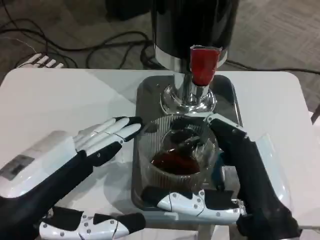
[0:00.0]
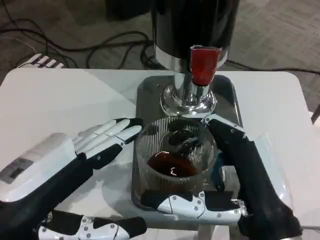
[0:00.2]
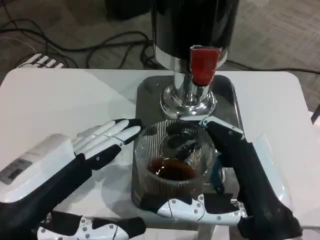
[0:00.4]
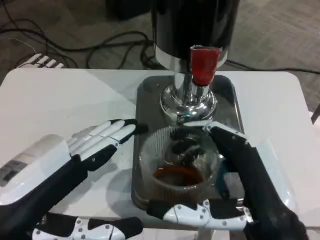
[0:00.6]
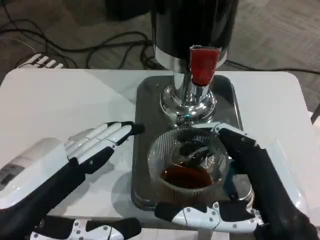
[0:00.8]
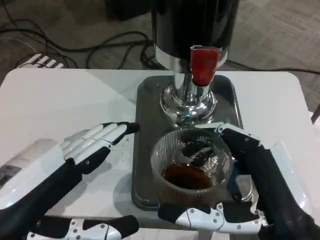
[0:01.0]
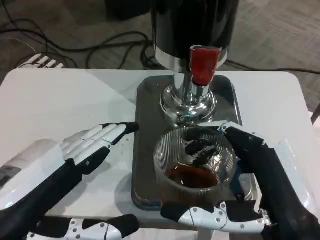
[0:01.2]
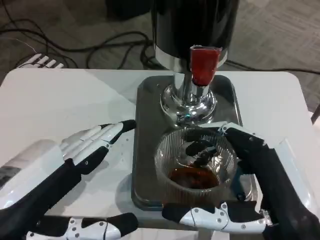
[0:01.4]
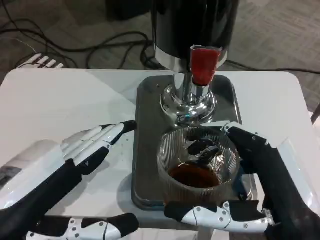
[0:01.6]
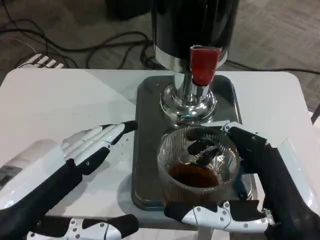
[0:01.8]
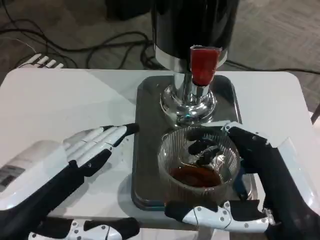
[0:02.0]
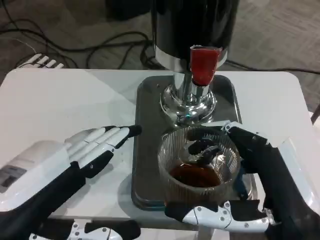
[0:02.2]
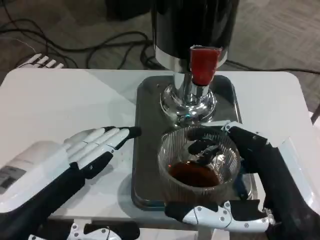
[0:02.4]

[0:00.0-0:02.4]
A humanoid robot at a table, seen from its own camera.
Task of the whole recording: Grasp the cup under the faucet to collect the drink, then remove the cup.
0:01.2 to 0:02.4: Neither hand changes place.

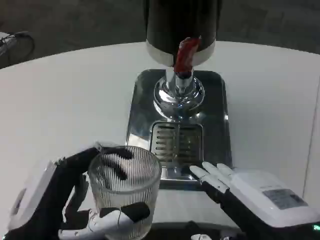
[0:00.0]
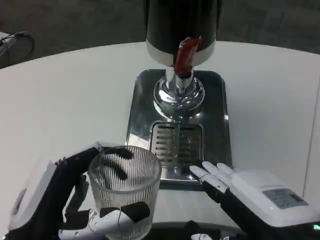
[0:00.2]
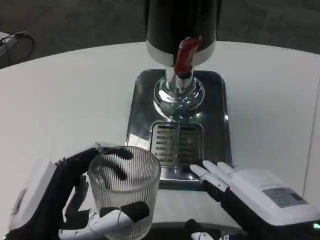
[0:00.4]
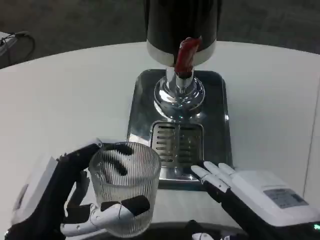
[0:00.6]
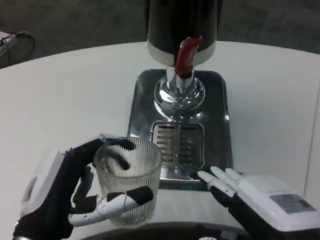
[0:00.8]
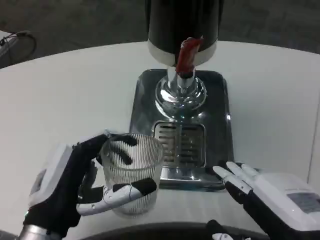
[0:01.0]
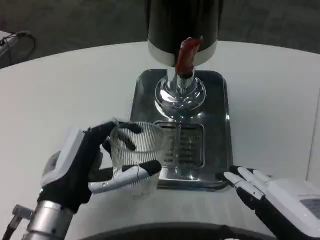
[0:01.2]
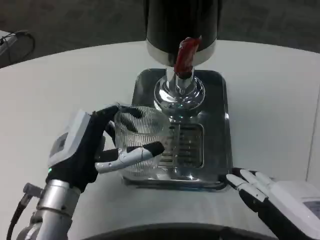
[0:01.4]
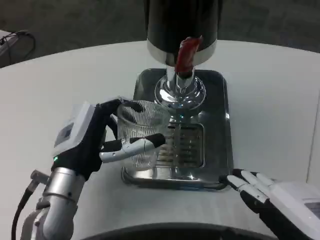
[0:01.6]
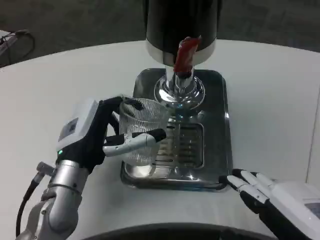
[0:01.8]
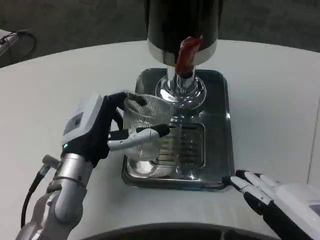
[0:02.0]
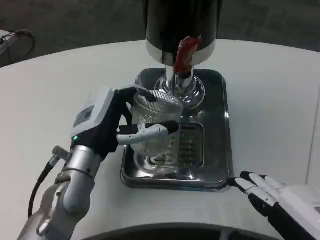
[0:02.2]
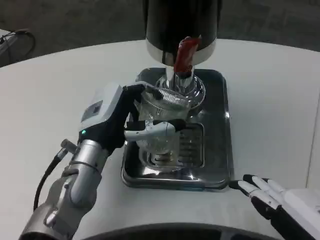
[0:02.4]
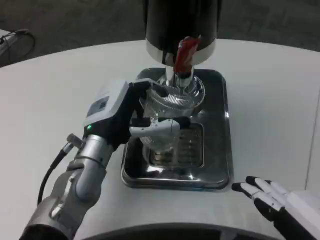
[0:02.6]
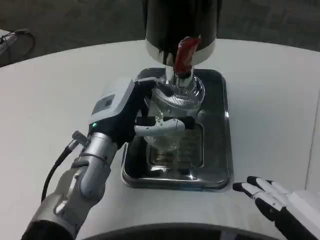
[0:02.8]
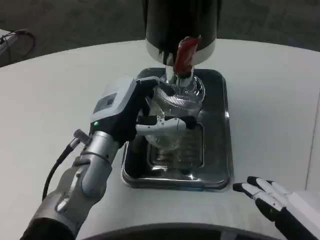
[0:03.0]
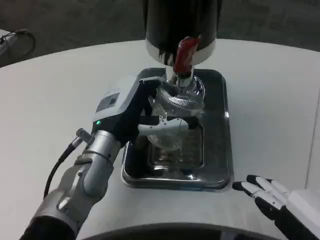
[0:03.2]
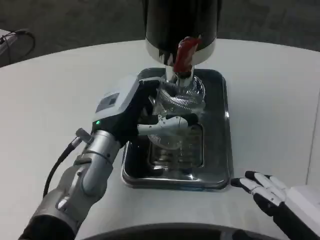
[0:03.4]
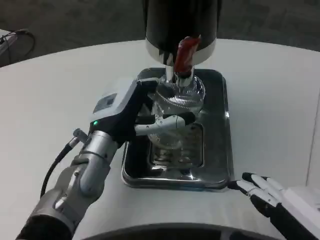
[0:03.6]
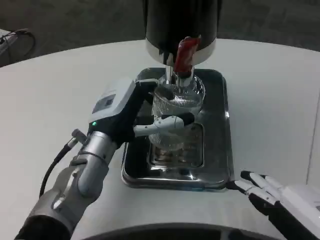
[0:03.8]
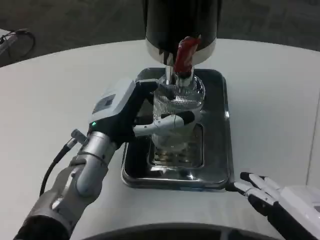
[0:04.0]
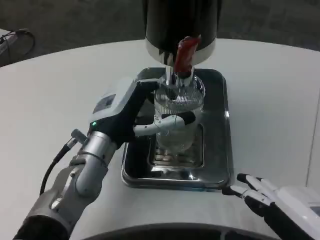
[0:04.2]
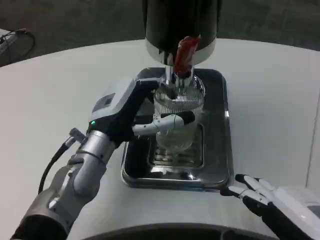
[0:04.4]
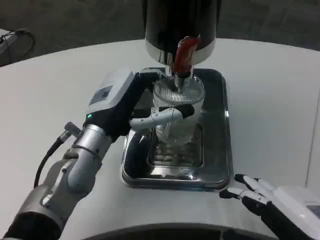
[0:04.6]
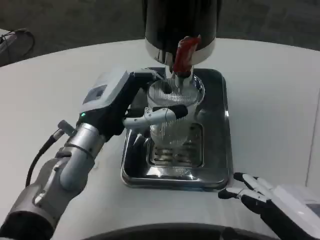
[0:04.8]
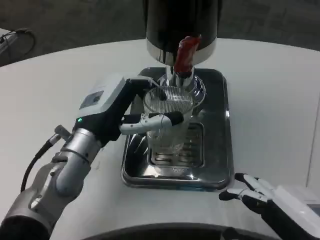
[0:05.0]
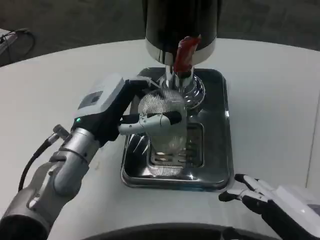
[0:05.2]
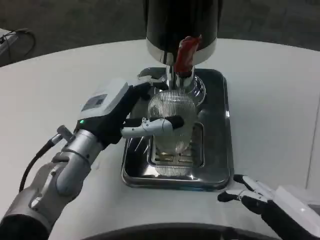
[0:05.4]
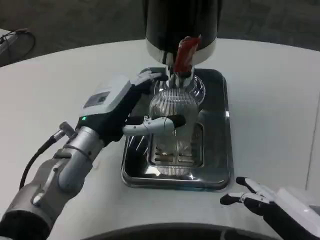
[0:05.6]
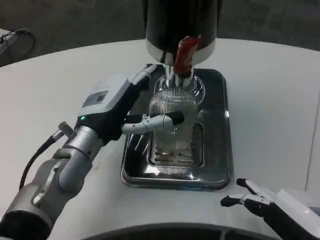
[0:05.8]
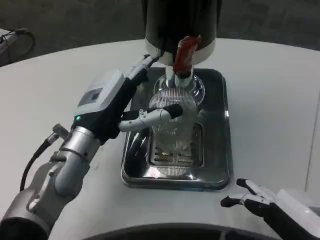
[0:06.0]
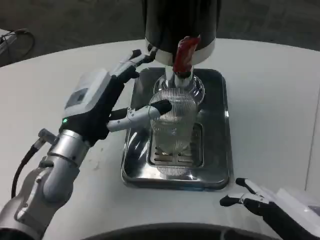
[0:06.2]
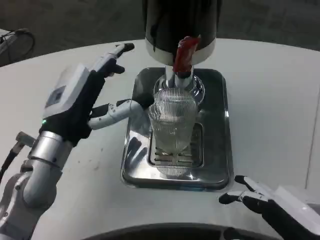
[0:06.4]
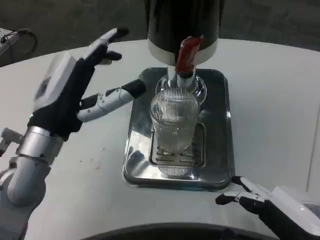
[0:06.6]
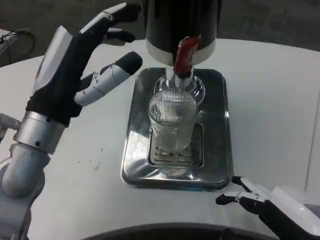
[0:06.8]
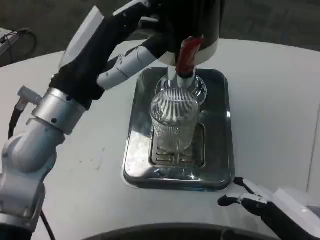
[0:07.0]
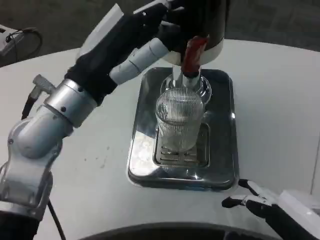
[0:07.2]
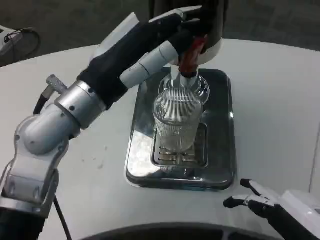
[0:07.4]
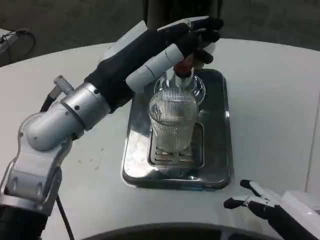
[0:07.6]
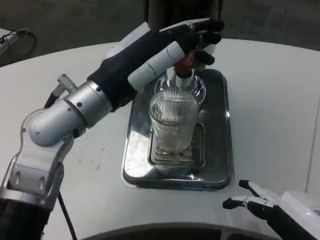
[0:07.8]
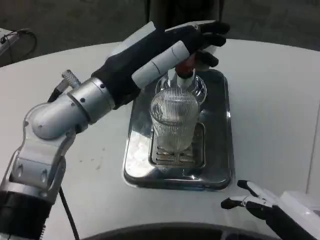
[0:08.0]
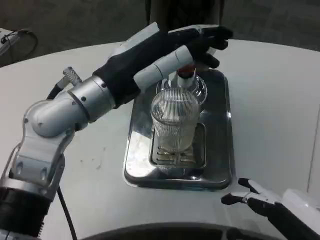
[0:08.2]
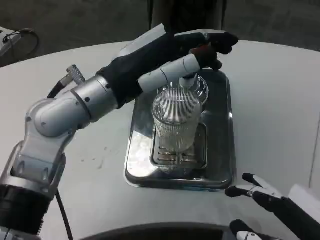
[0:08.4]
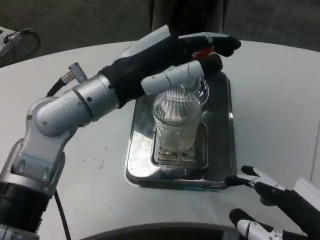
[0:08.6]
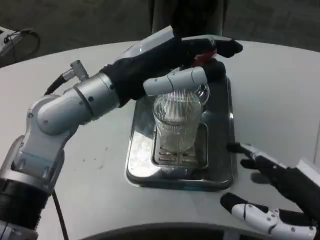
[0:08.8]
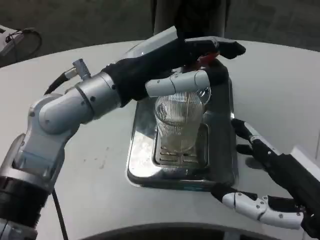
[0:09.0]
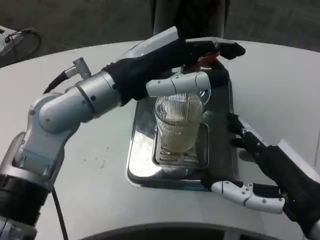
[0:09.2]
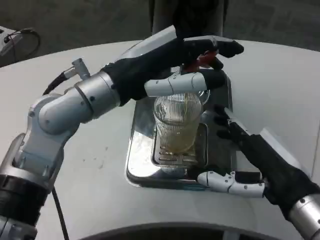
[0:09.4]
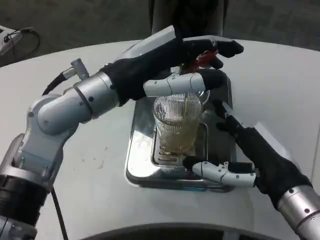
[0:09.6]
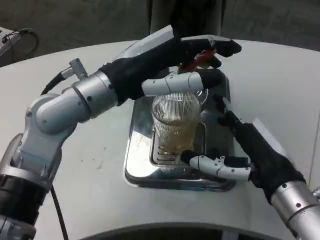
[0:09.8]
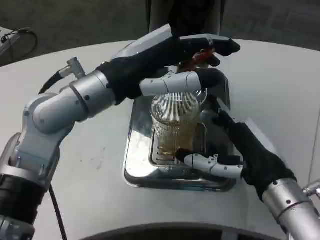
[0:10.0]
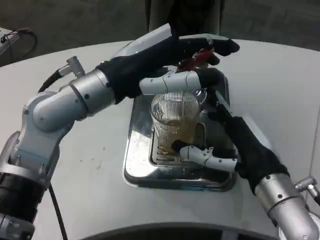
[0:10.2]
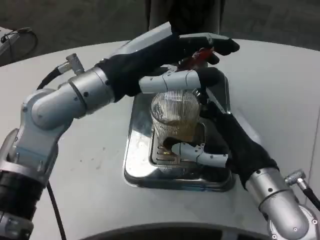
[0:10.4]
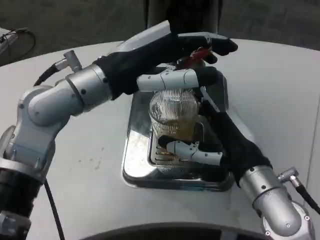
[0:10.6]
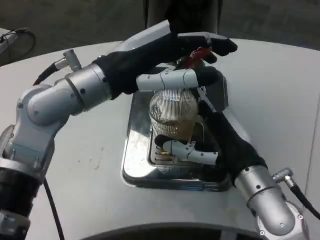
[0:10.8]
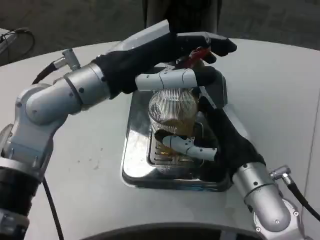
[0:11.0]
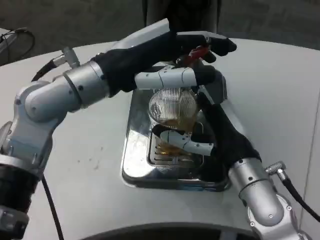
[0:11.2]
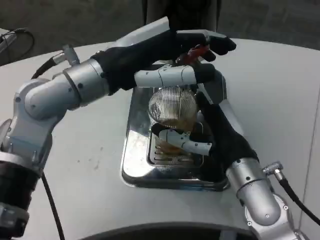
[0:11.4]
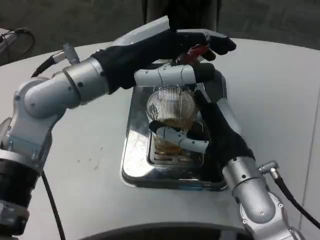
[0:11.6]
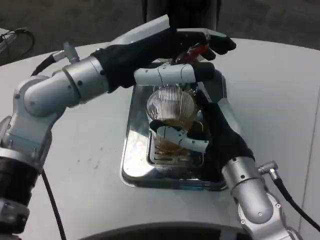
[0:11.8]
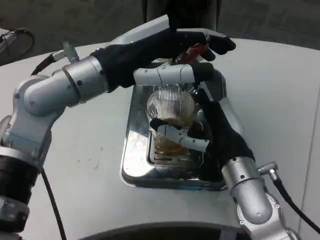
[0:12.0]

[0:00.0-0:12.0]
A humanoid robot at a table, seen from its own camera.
Task of the whole recording: Grasp the cup under the faucet to collect the drink, then remove the cup.
0:00.0 to 0:01.6: The left hand heads forward, covering approximately 15 cm.
0:01.6 to 0:03.0: The left hand moves forward, about 5 cm.
0:03.0 to 0:06.0: The hands make only small movements.
0:06.0 to 0:07.6: The left hand goes roughly 10 cm upward.
0:09.0 to 0:10.4: The right hand travels forward and to the left by roughly 10 cm.

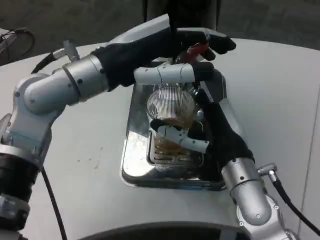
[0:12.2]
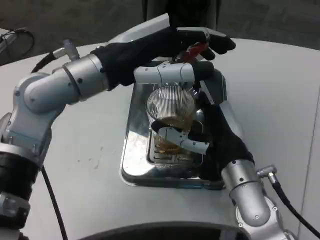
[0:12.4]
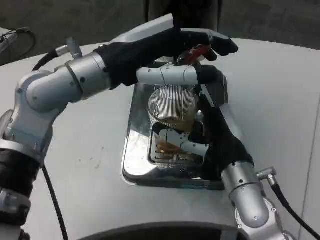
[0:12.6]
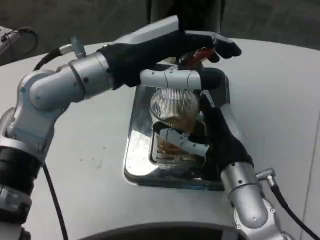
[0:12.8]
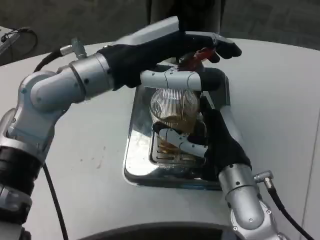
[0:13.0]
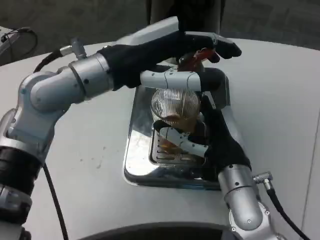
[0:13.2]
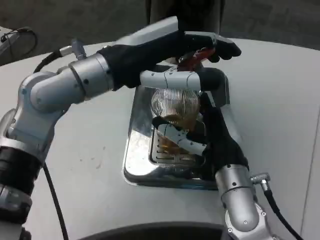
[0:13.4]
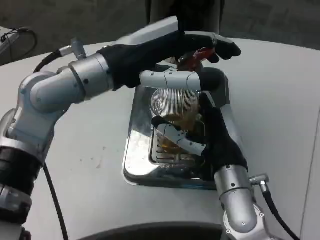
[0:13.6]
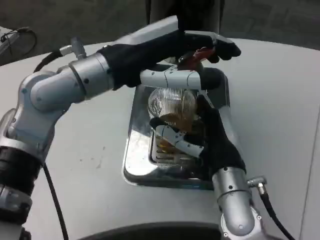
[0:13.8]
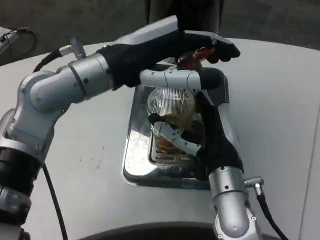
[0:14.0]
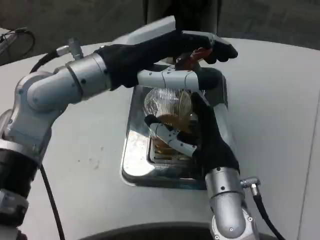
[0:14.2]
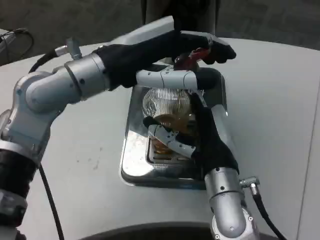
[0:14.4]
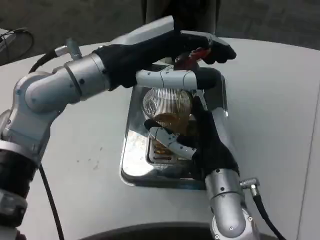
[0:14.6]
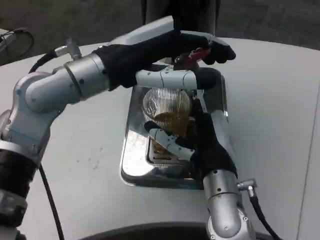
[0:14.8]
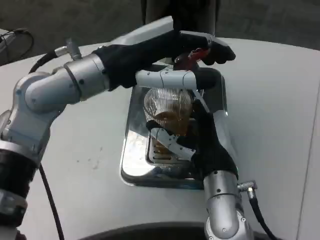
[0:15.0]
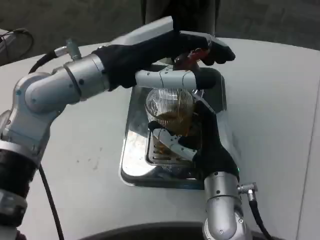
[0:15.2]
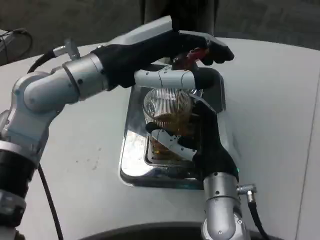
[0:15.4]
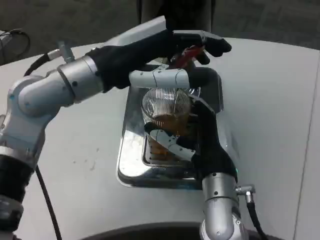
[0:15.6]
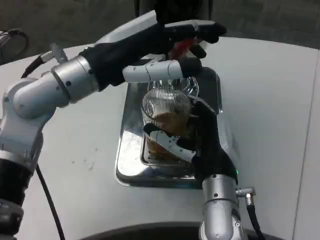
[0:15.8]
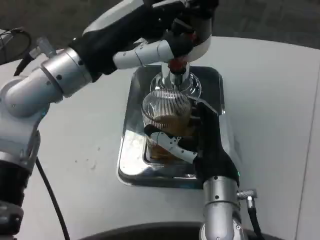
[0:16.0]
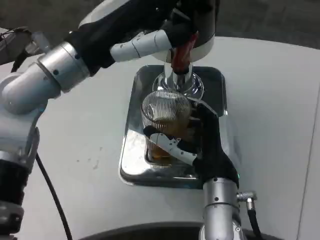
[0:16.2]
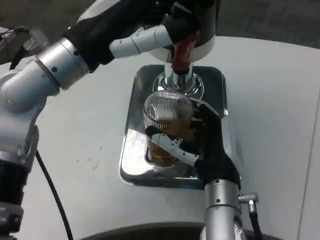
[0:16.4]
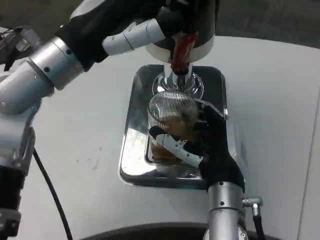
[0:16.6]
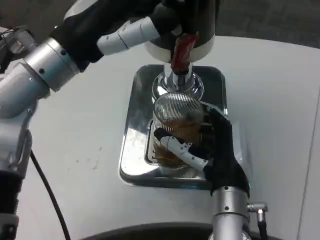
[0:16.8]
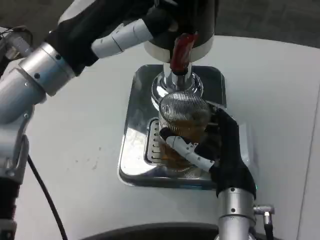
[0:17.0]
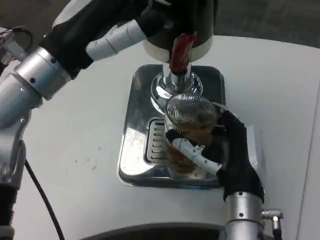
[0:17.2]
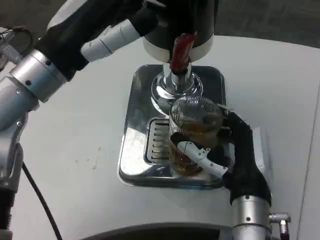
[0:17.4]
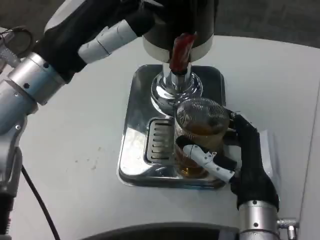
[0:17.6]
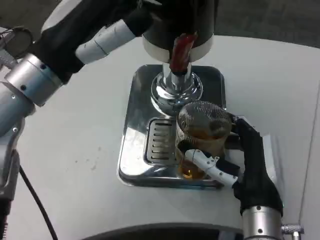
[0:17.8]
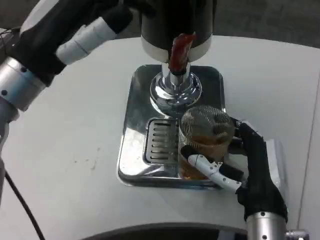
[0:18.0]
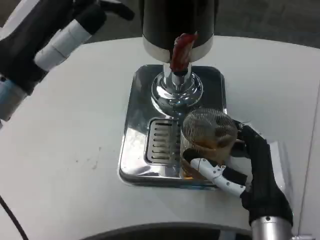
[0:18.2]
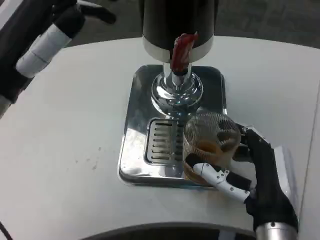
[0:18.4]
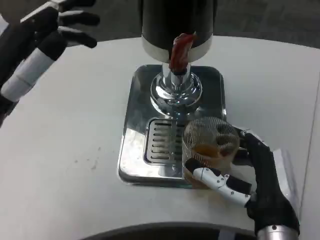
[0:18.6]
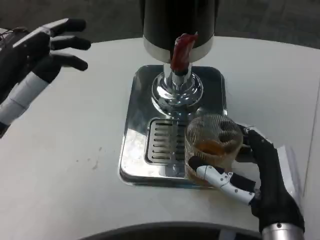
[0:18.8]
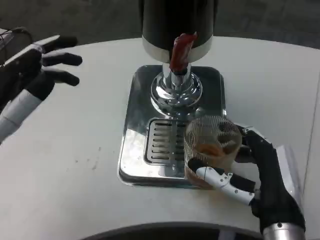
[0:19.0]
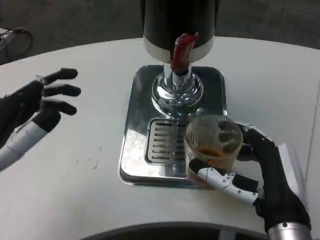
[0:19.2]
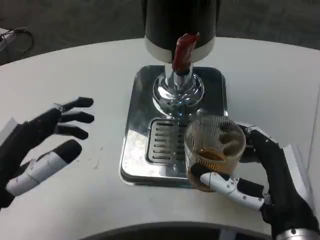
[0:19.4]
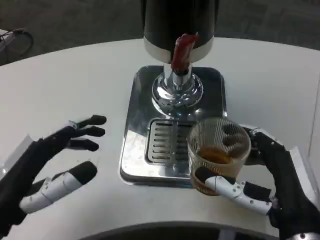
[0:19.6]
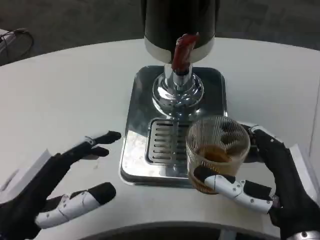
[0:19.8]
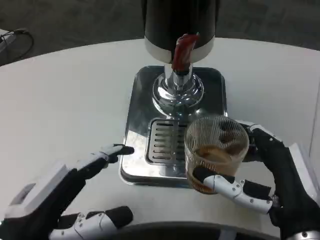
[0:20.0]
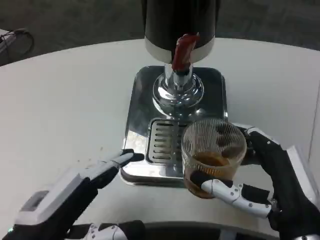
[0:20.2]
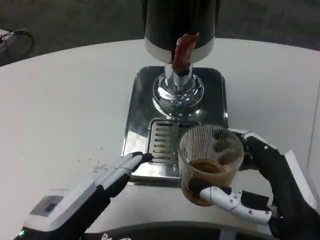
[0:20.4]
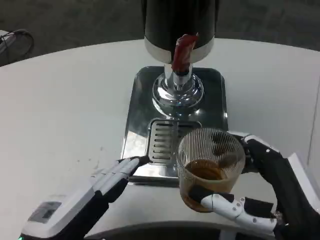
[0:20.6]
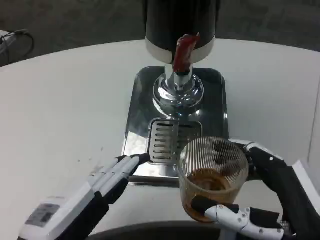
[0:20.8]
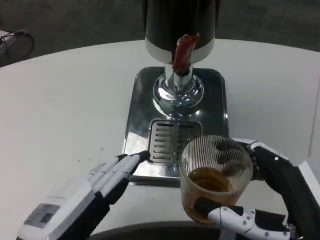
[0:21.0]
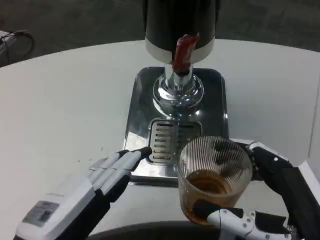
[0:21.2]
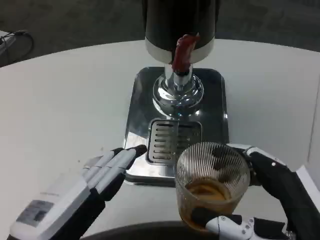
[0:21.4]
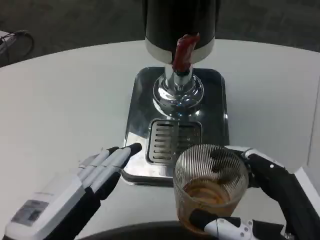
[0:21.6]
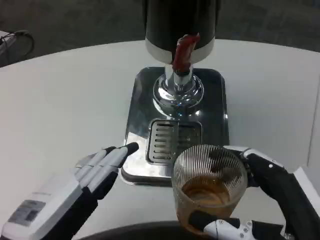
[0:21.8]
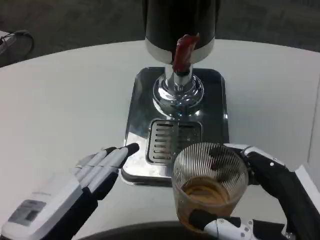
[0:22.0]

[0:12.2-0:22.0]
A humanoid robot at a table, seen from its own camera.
Task of the whole recording: Grasp the cup under the faucet to collect the drink, then remove the cup.
0:16.4 to 0:17.8: The right hand shifts by some 5 cm.
0:17.8 to 0:19.2: The left hand moves backward, downward and to the left, about 15 cm.
0:19.2 to 0:20.6: The left hand moves downward and to the right, approximately 10 cm, while the right hand heads backward, covering roughly 5 cm.
0:20.6 to 0:22.0: The hands stay close to where they were, moving slightly.
